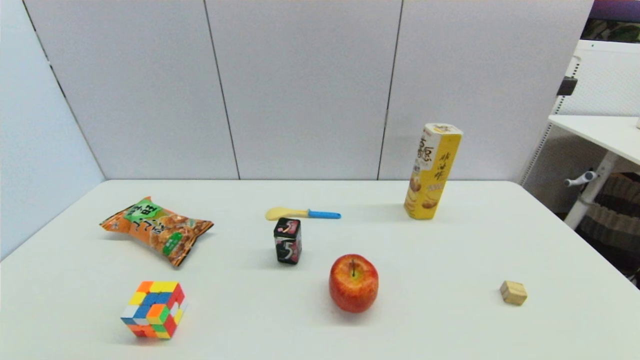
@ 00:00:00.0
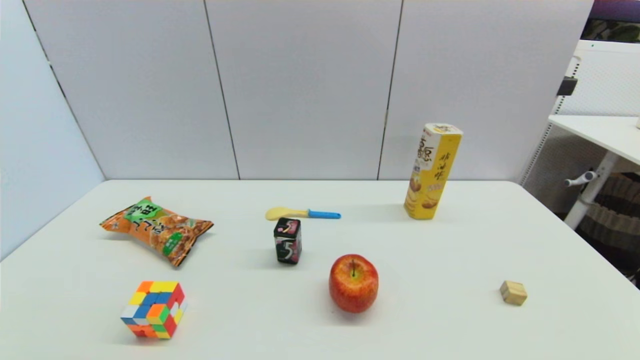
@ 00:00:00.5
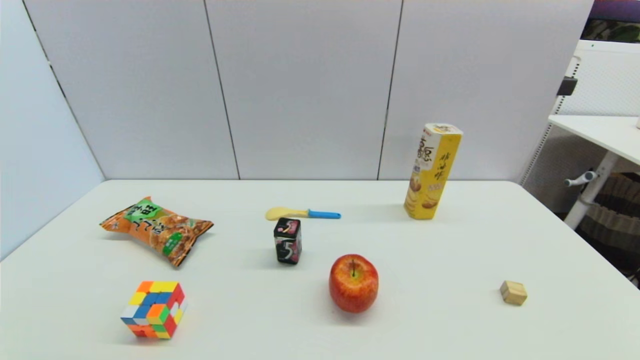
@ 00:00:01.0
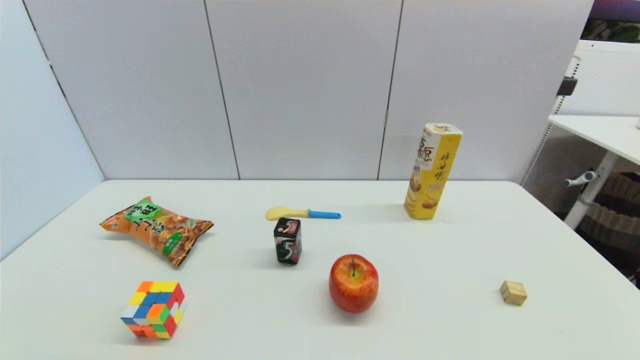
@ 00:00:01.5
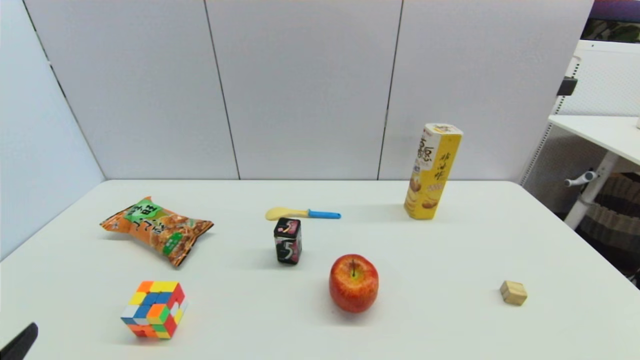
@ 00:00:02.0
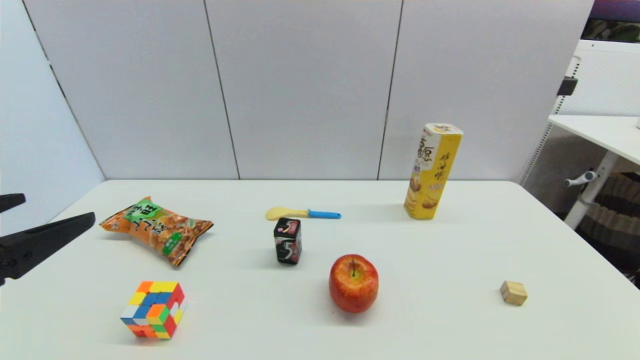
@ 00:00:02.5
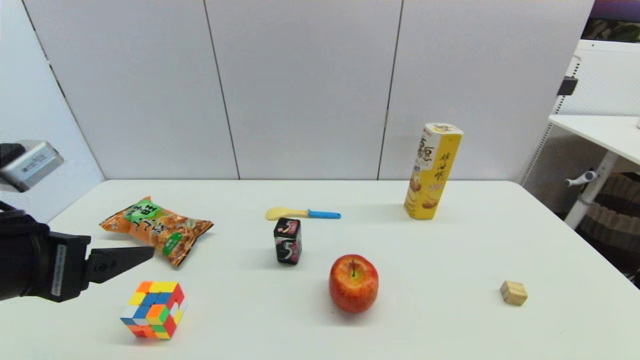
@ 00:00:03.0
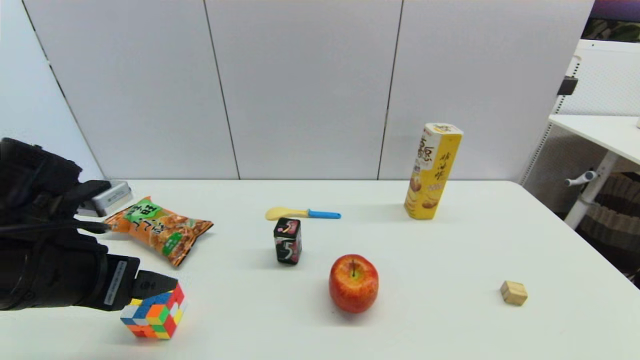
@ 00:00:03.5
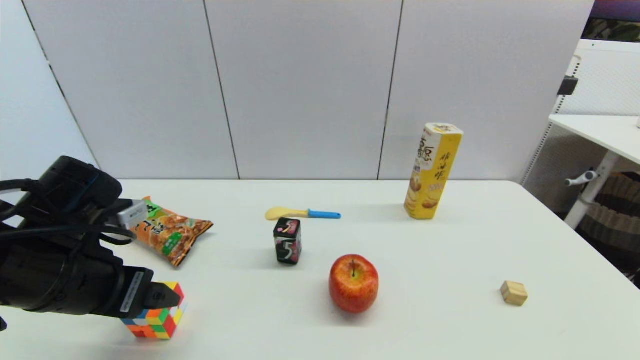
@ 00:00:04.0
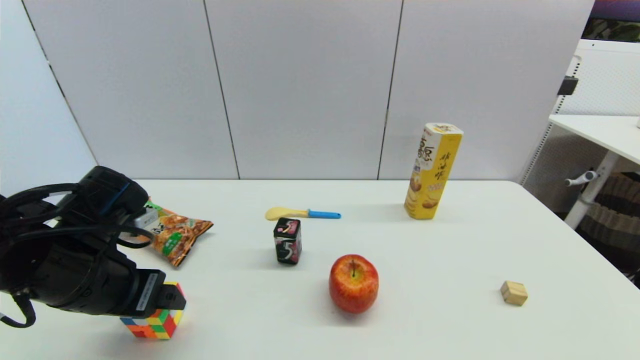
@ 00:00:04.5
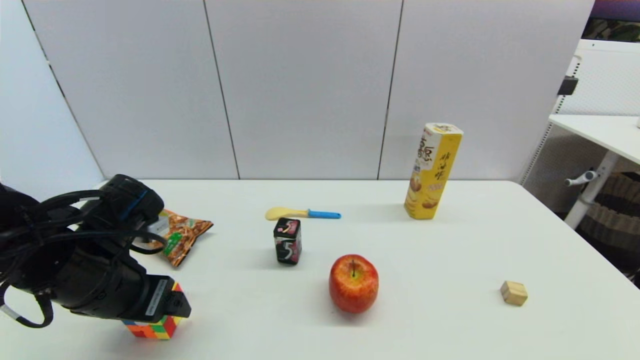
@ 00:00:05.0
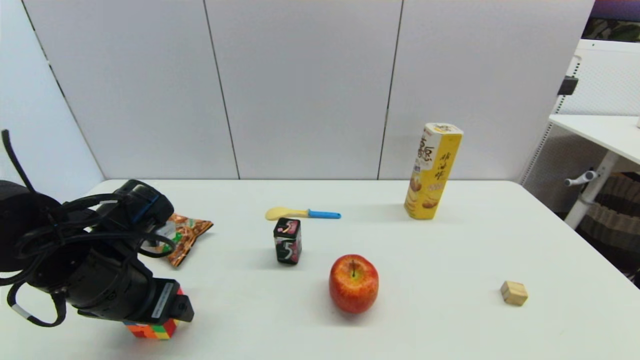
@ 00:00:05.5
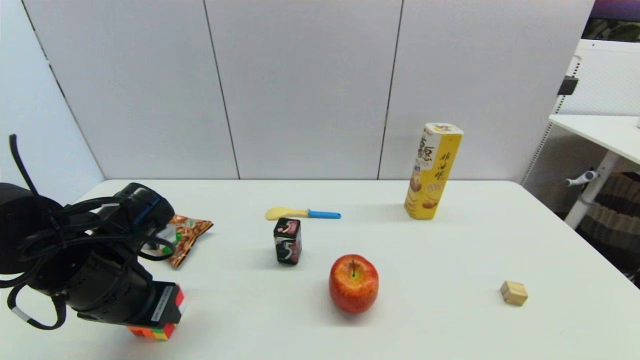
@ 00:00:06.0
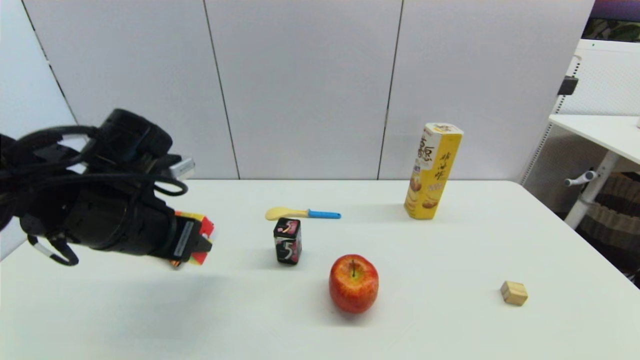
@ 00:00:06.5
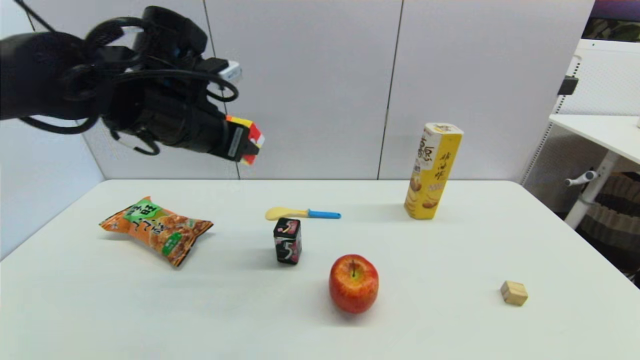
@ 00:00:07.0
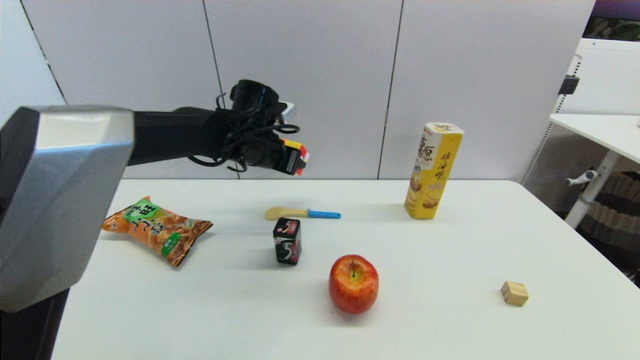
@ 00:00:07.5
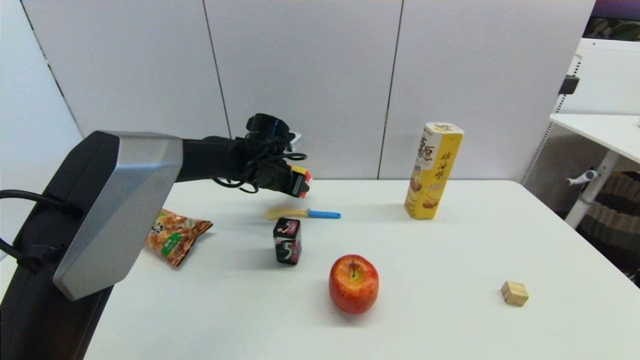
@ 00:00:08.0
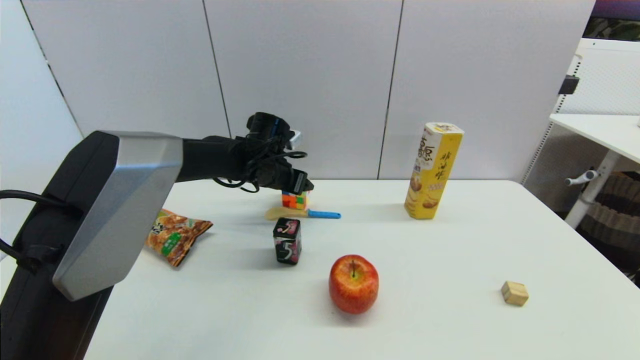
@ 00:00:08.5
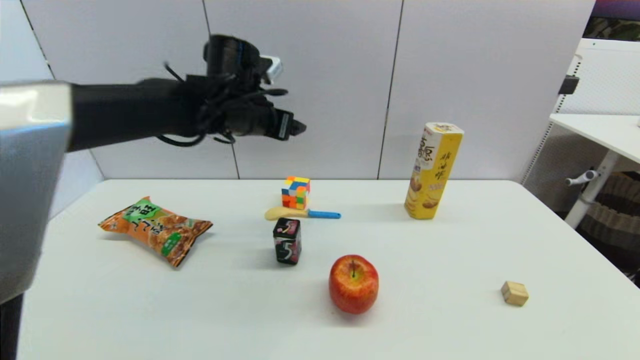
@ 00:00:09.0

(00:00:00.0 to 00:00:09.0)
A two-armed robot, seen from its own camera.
Step, 00:00:02.0 - 00:00:05.5: Grasp the magic cube with left gripper.
Step, 00:00:06.5 - 00:00:08.5: Place the magic cube on the table with left gripper.
00:00:02.0 - 00:00:04.5: The left gripper heads forward, covering about 20 cm.
00:00:04.5 - 00:00:07.0: The left gripper goes roughly 20 cm forward, upward and to the right, and closes.
00:00:07.0 - 00:00:09.0: The left gripper travels forward by about 5 cm, goes downward and returns, about 15 cm each way, and opens.

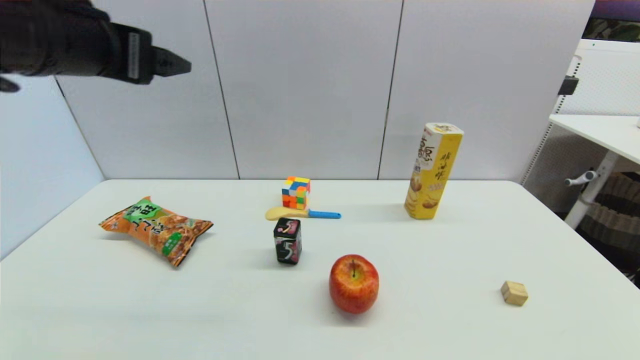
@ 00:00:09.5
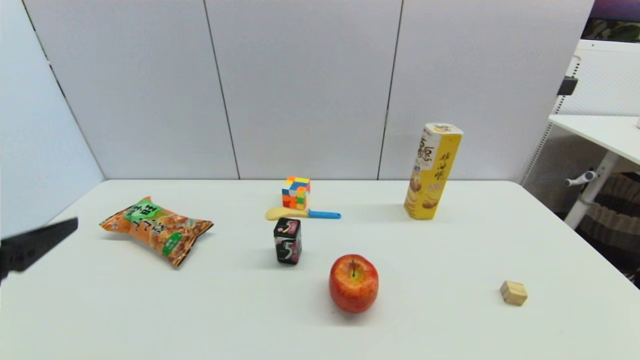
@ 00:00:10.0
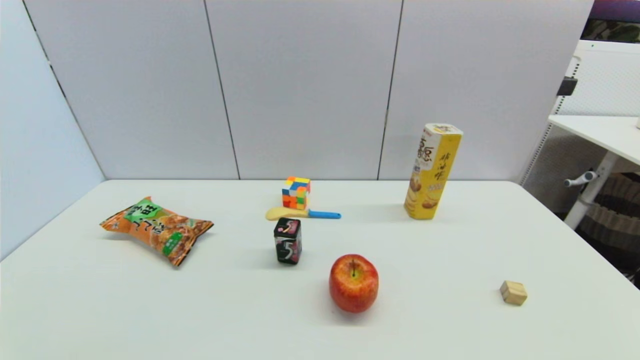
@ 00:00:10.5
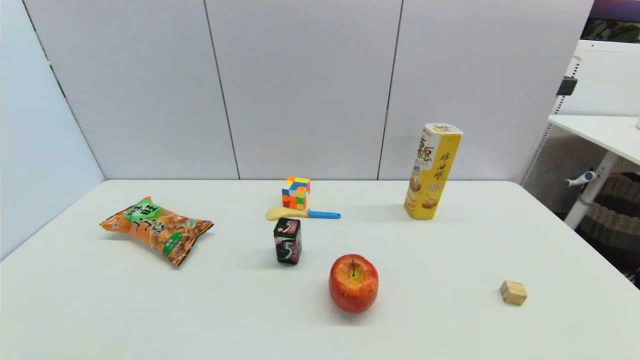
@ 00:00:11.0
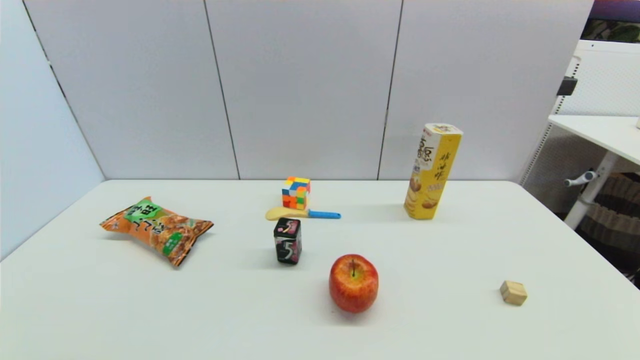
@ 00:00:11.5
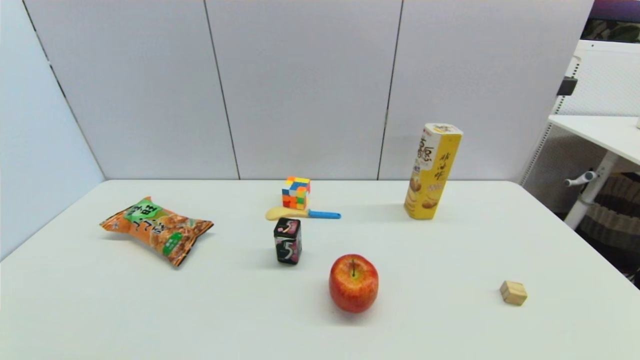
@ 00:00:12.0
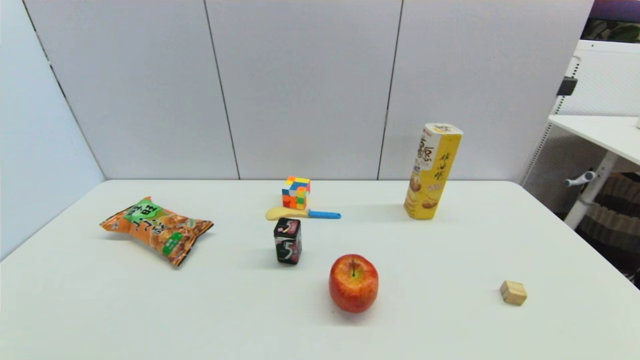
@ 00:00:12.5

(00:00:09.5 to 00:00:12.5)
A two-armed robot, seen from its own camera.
00:00:09.5 - 00:00:11.0: The left gripper goes roughly 40 cm downward and backward.
00:00:11.0 - 00:00:12.5: Both grippers stay put.

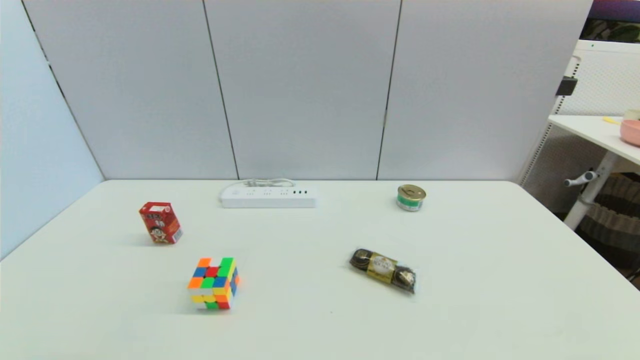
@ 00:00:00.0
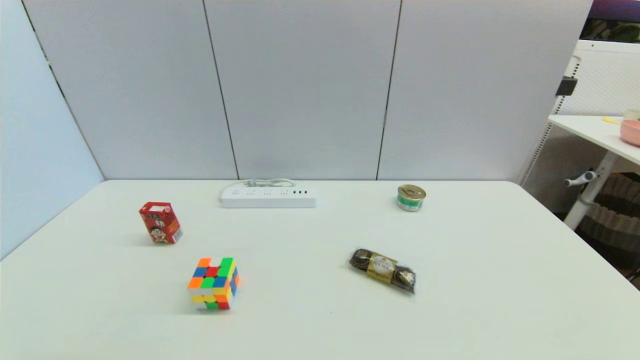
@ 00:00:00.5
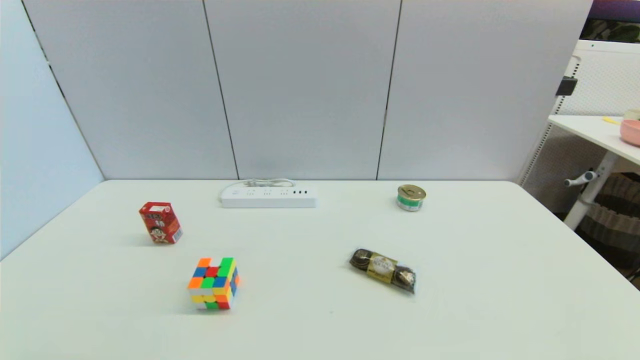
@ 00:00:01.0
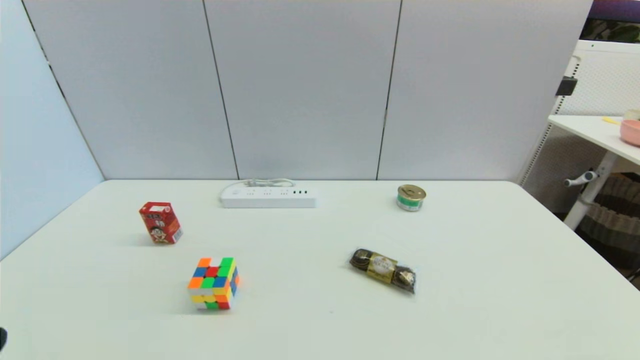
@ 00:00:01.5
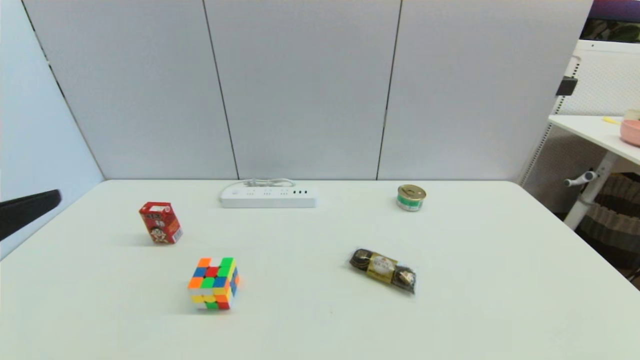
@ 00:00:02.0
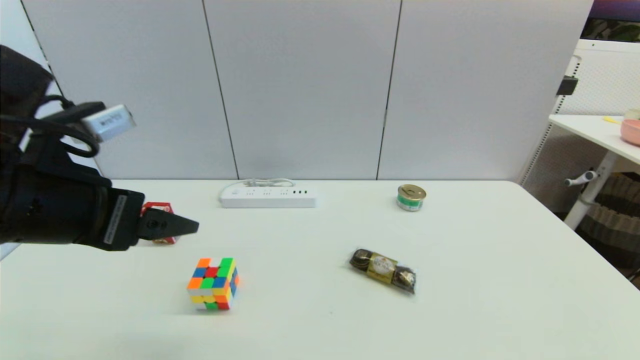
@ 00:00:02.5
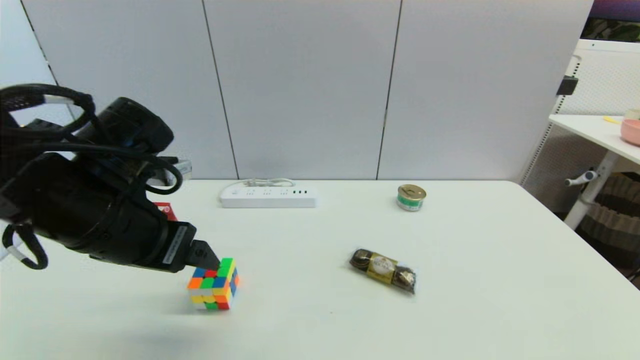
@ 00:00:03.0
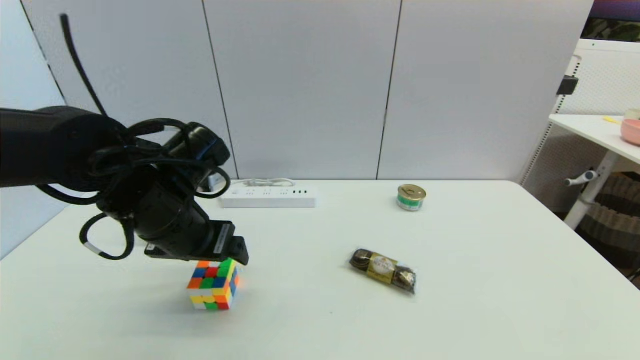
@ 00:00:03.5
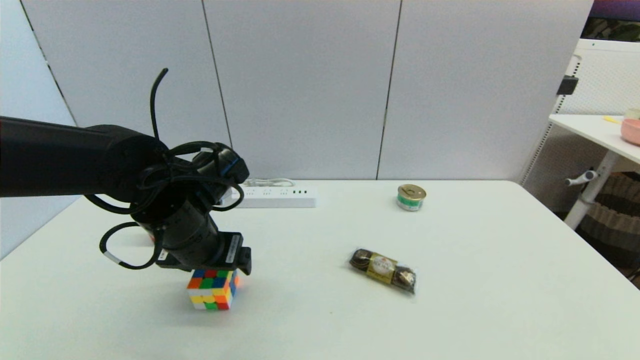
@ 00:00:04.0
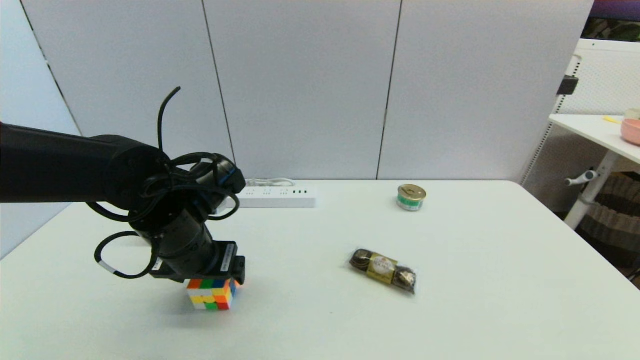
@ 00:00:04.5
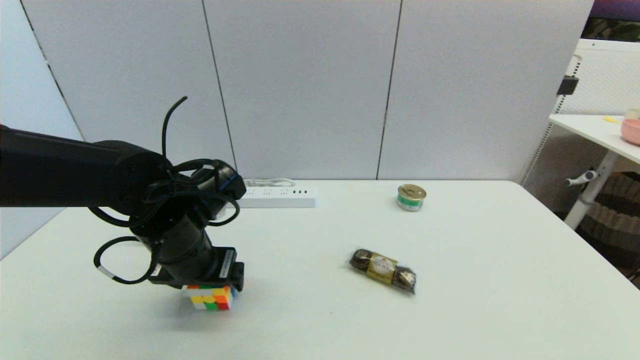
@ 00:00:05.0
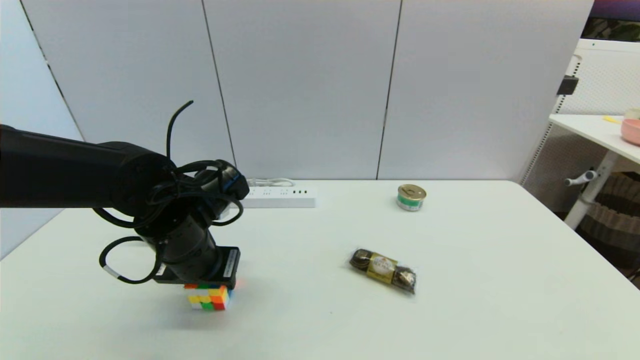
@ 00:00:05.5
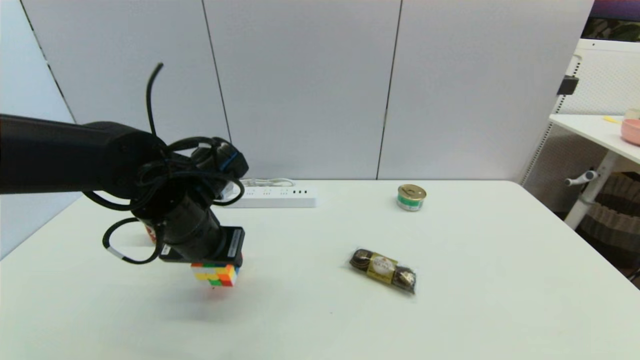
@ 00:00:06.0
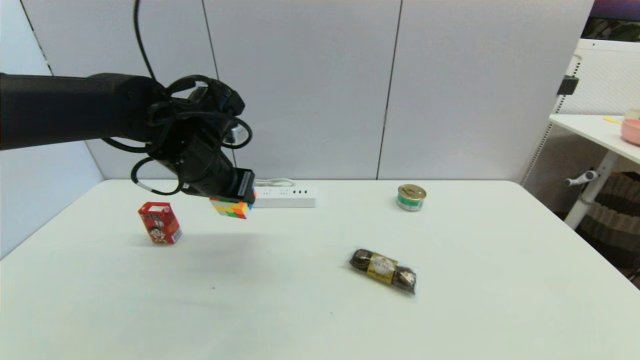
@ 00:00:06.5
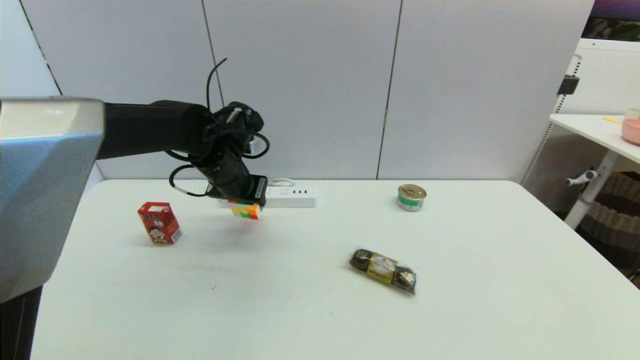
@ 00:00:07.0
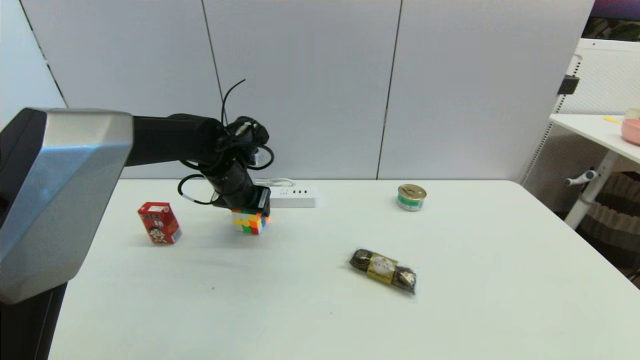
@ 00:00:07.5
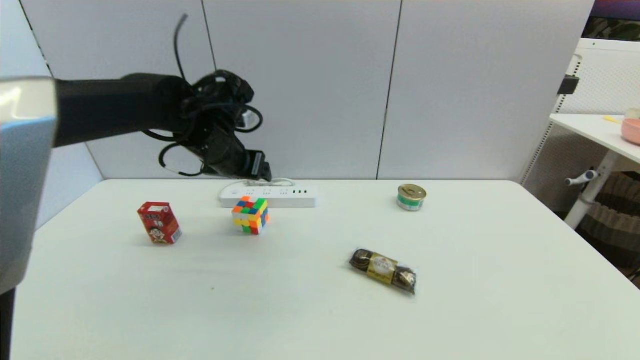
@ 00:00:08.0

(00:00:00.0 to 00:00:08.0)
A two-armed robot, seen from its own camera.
Step, 00:00:01.5 - 00:00:05.5: Grasp the magic cube with left gripper.
Step, 00:00:06.0 - 00:00:07.5: Place the magic cube on the table with left gripper.
00:00:00.0 - 00:00:02.0: The left gripper shifts approximately 25 cm upward and forward.
00:00:02.0 - 00:00:04.0: The left gripper is displaced forward, to the right and downward by some 25 cm.
00:00:04.0 - 00:00:06.0: The left gripper closes its fingers.
00:00:06.0 - 00:00:08.0: The left gripper shifts roughly 10 cm forward and upward, and opens its fingers.
